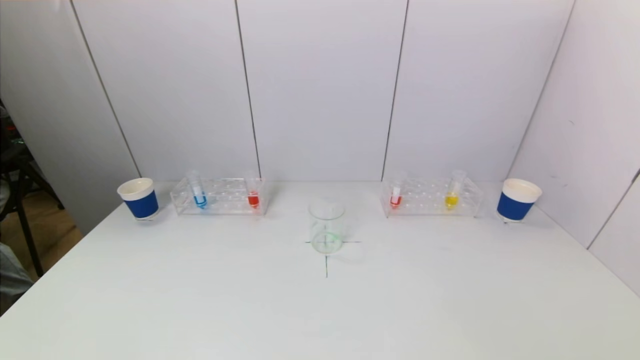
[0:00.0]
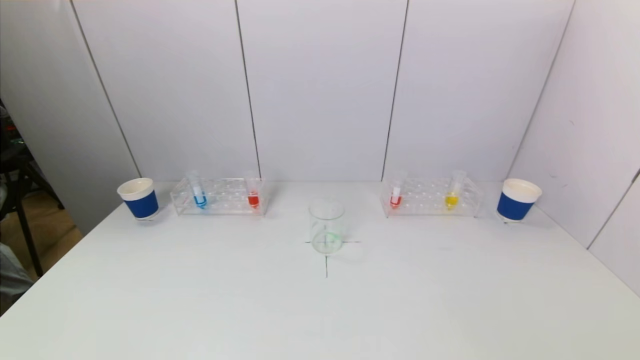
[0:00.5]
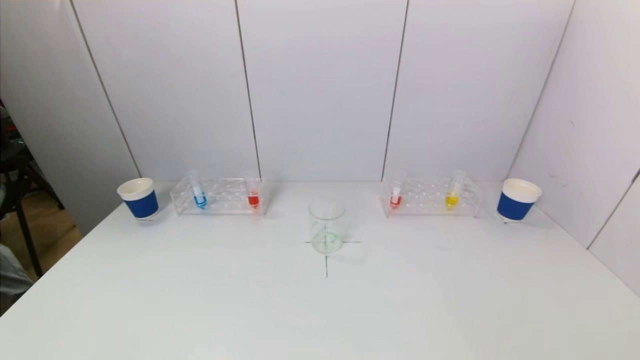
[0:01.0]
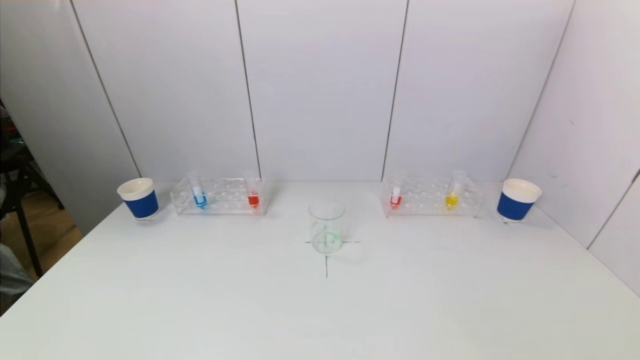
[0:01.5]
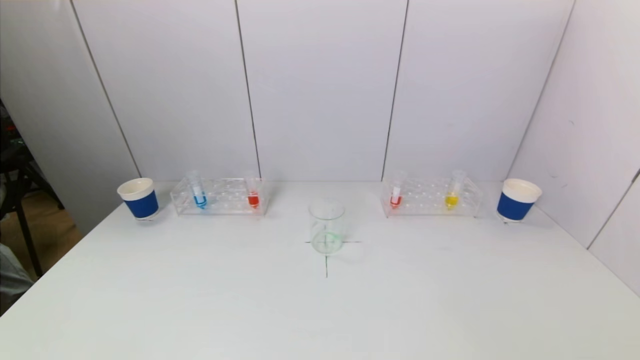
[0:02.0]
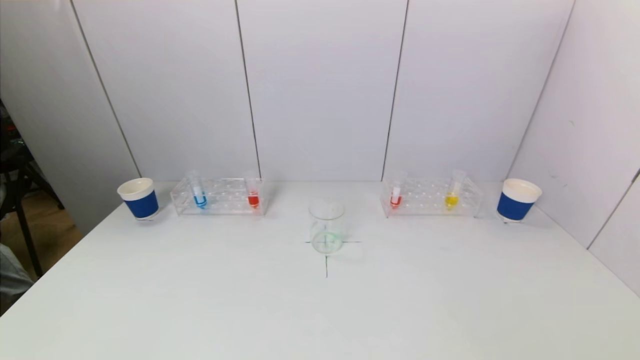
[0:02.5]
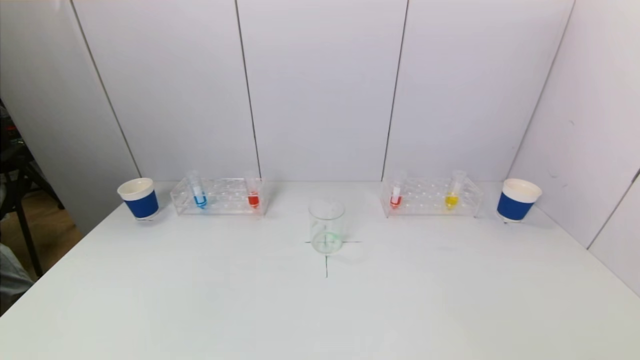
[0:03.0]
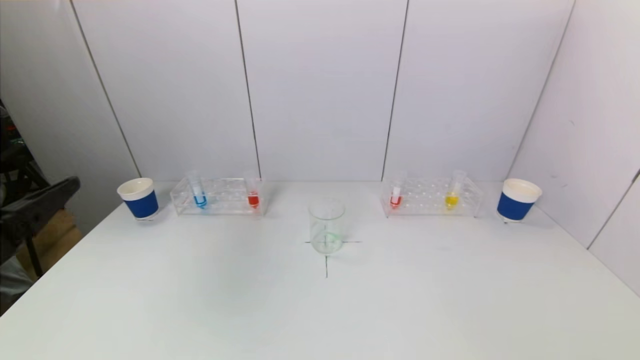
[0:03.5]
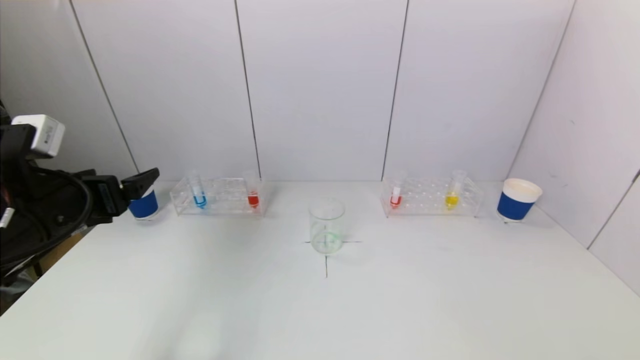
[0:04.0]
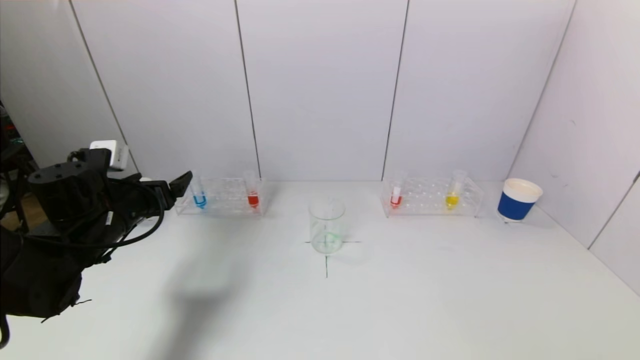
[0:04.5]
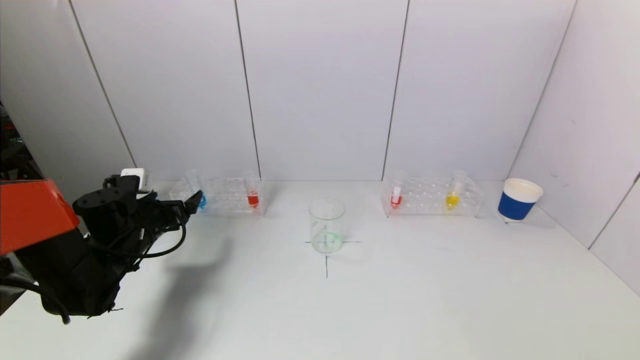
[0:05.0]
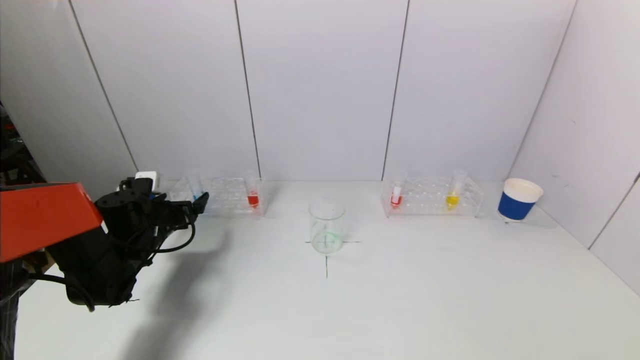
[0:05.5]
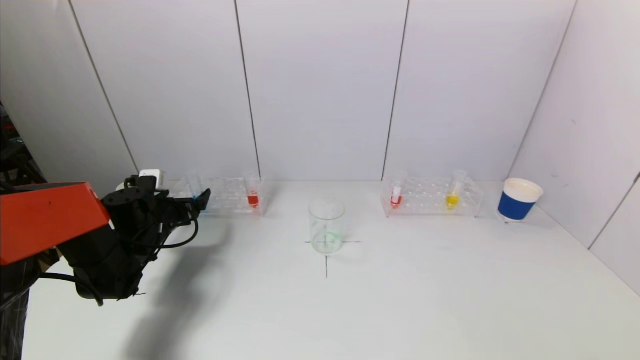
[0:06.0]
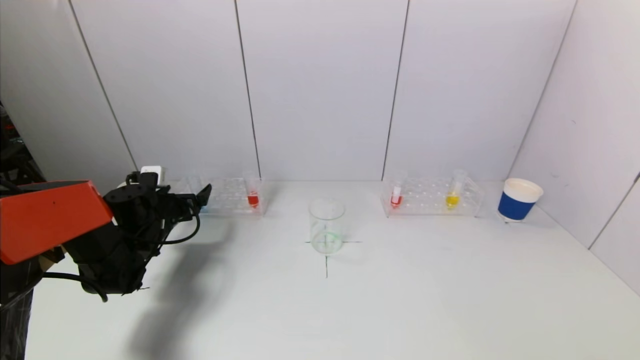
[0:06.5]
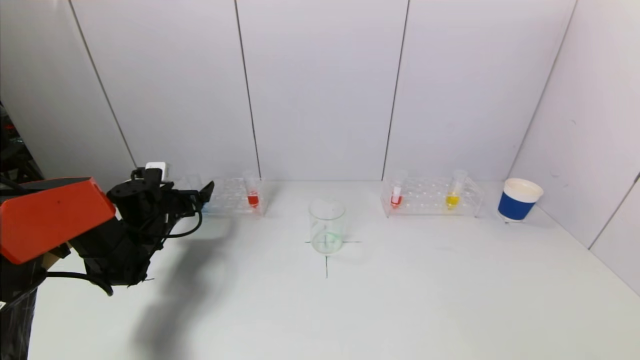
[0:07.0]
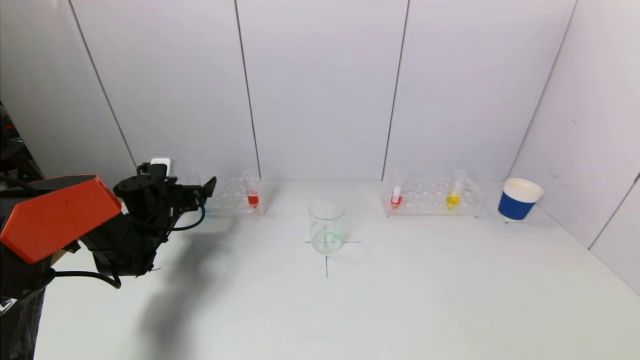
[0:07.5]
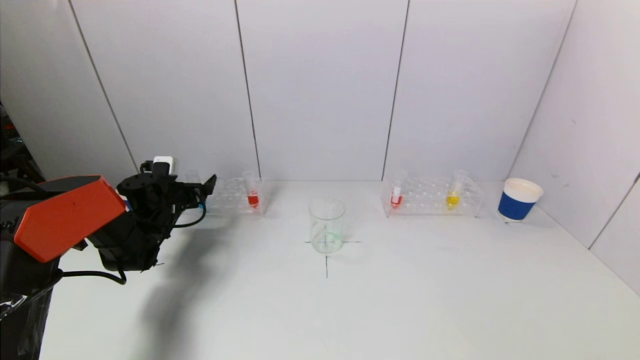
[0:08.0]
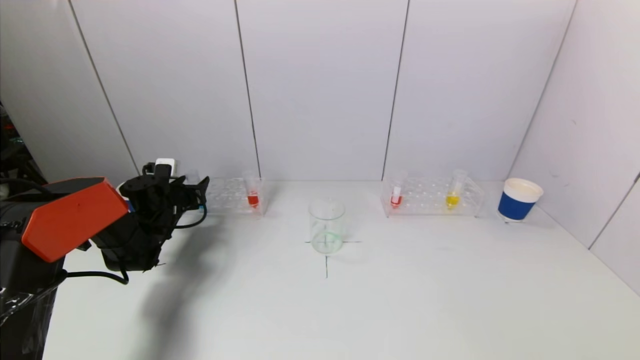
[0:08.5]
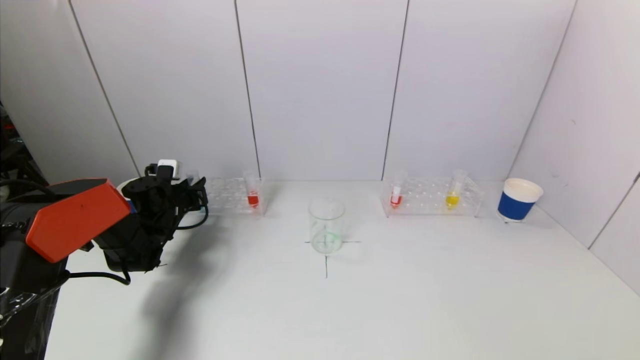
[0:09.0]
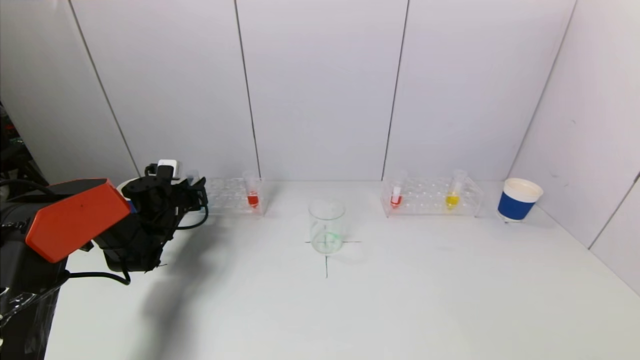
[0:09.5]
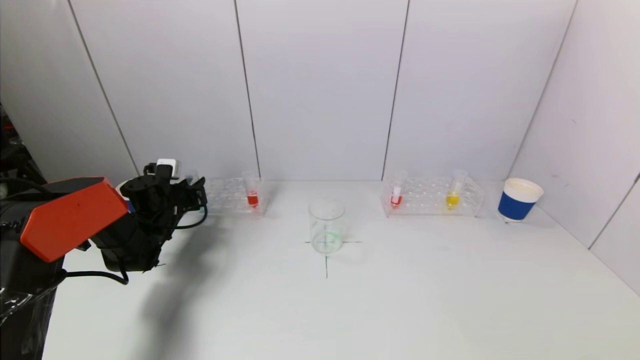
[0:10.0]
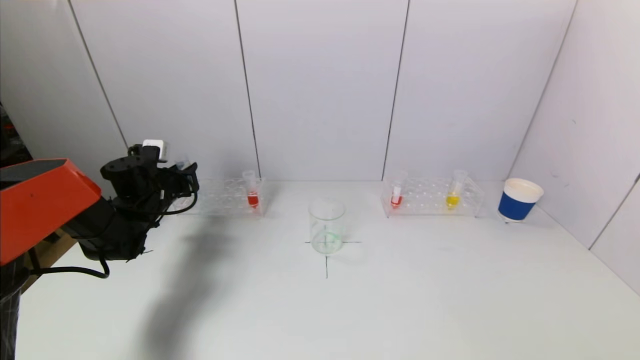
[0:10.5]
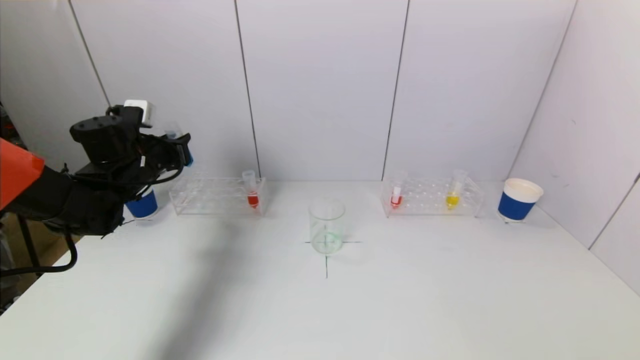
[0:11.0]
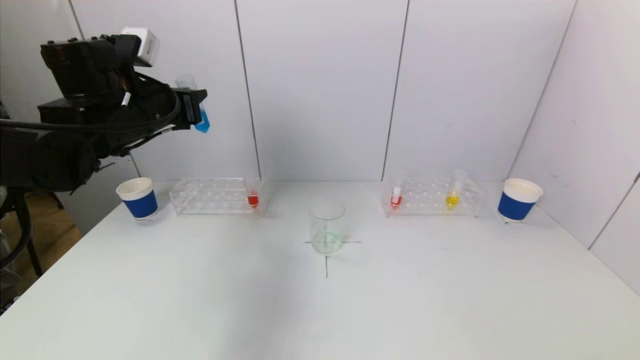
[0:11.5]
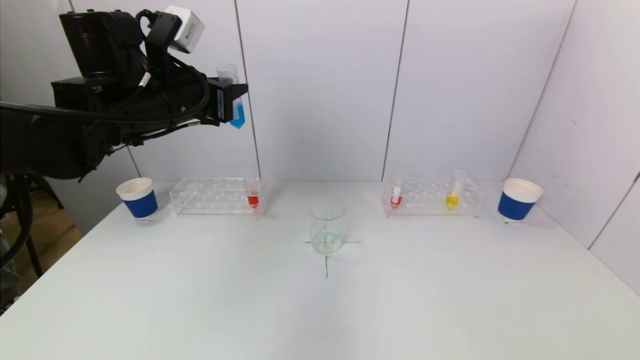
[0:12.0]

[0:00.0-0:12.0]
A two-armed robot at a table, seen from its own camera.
Task of the whole recording: pick up a test tube with pigment on left test tube rack and a test tube with pigment on right test tube rack by grippers and pour them into the beaker.
Step, 0:00.0 to 0:08.5: Grasp the blue reagent with the left gripper.
0:00.0 to 0:02.0: Neither gripper changes place.
0:02.0 to 0:04.0: The left gripper goes approximately 25 cm forward and upward.
0:04.0 to 0:06.0: The left gripper moves forward and downward, some 25 cm.
0:06.0 to 0:08.0: The left gripper is displaced forward by approximately 5 cm.
0:08.0 to 0:10.0: The left gripper closes up.
0:10.0 to 0:12.0: The left gripper is displaced upward, to the right and backward by approximately 30 cm.

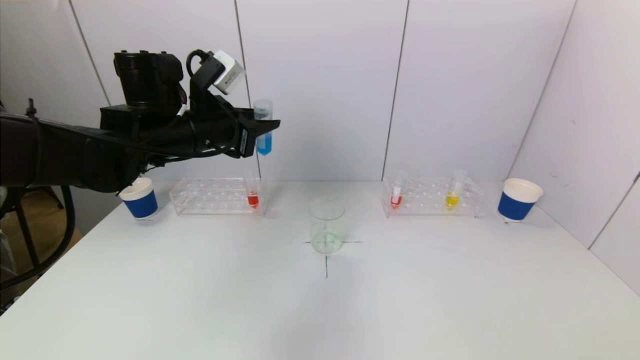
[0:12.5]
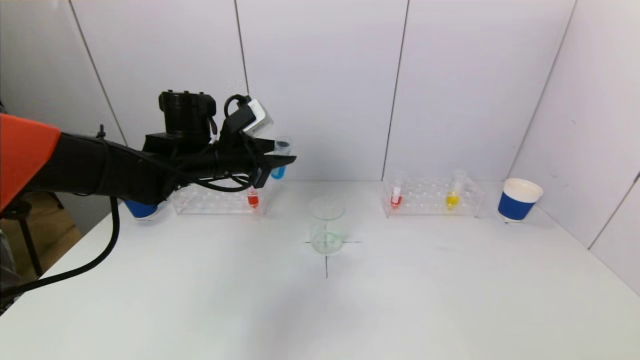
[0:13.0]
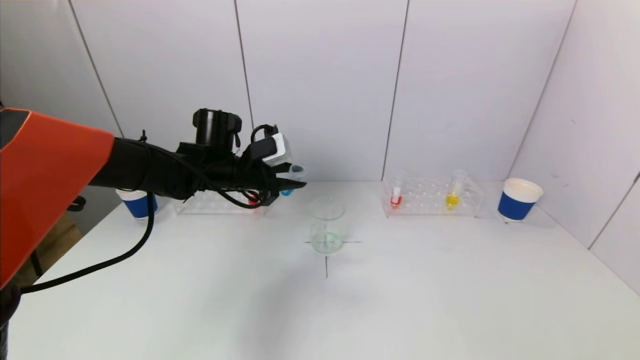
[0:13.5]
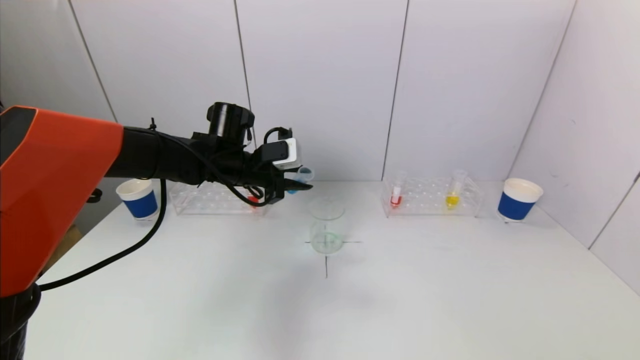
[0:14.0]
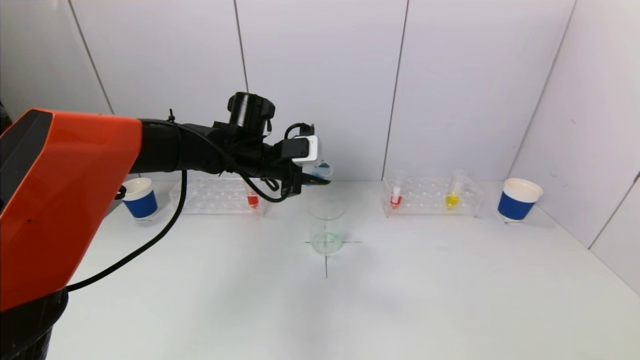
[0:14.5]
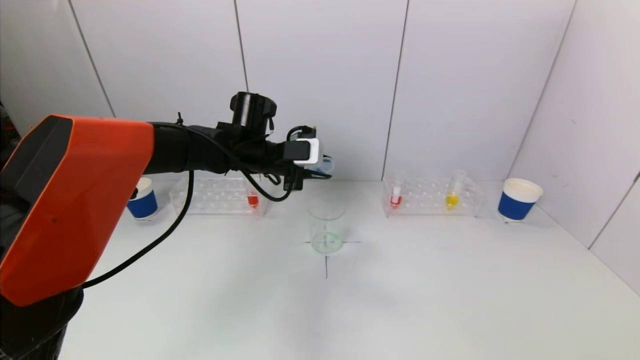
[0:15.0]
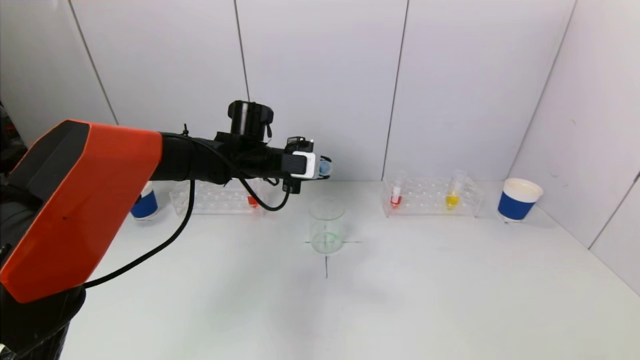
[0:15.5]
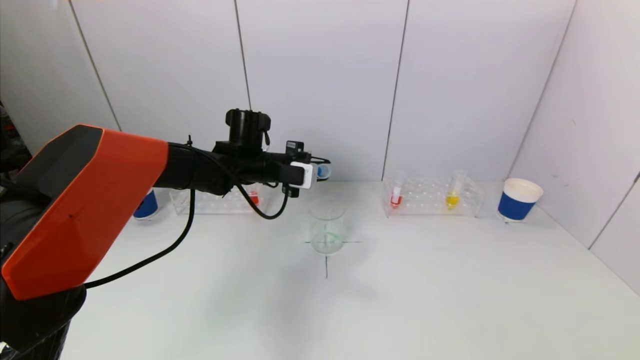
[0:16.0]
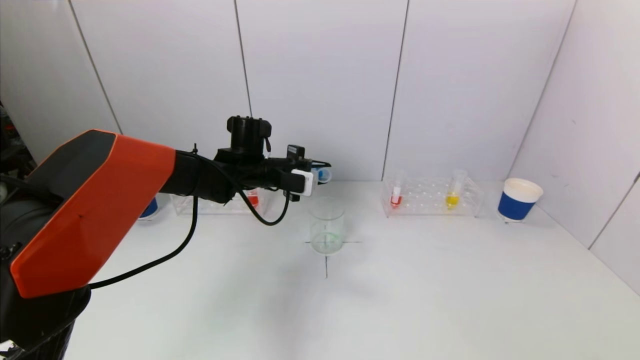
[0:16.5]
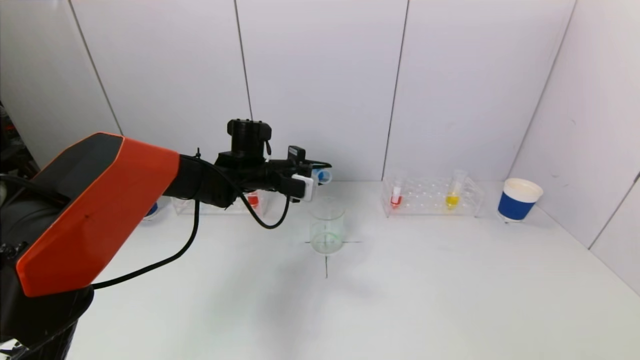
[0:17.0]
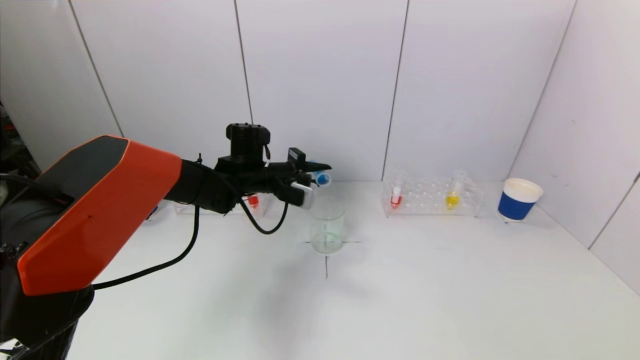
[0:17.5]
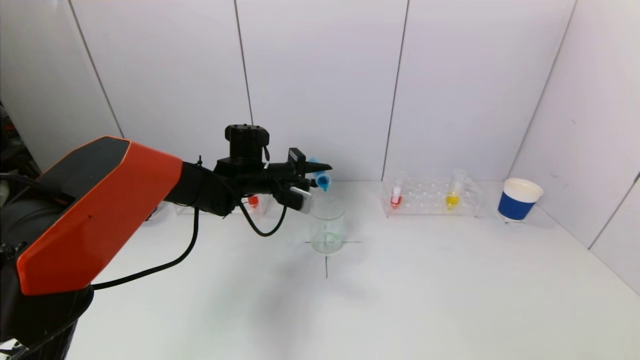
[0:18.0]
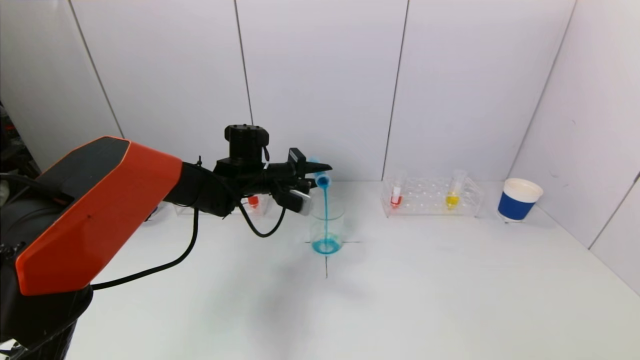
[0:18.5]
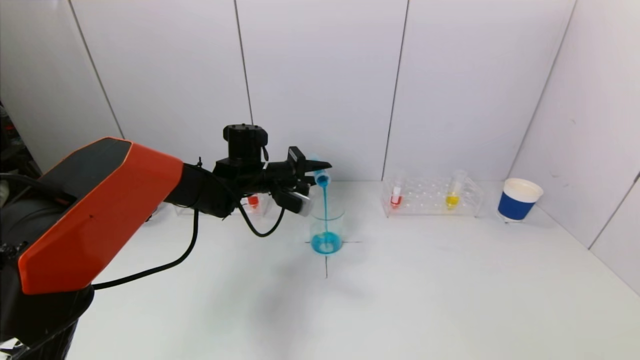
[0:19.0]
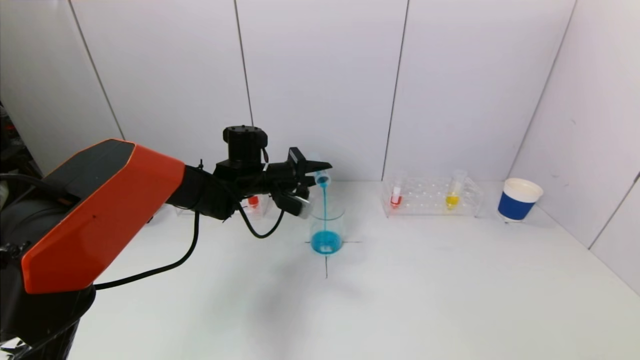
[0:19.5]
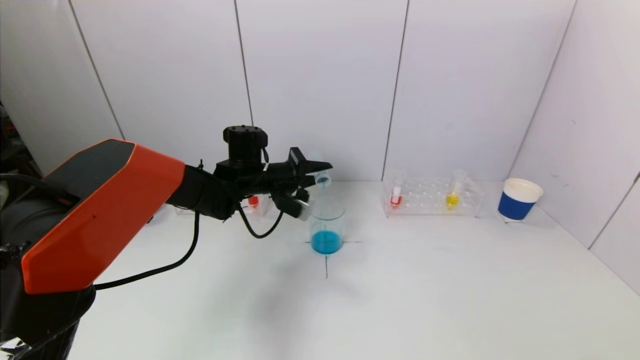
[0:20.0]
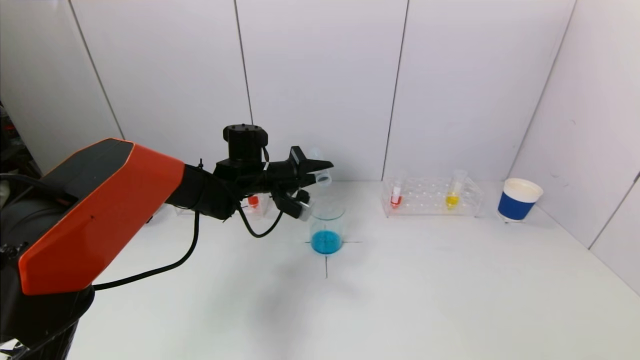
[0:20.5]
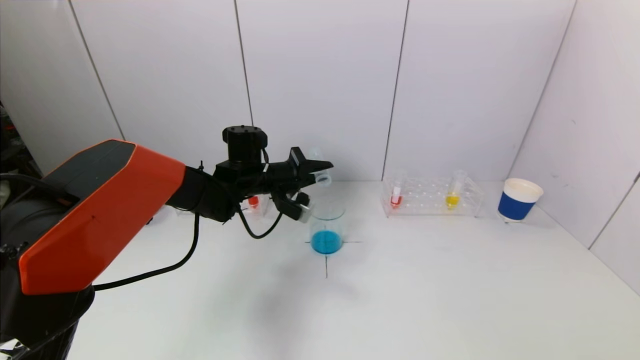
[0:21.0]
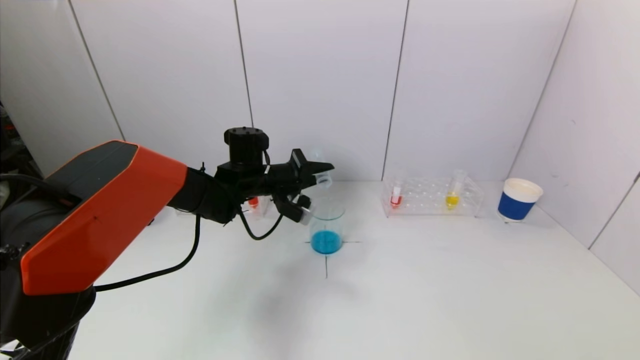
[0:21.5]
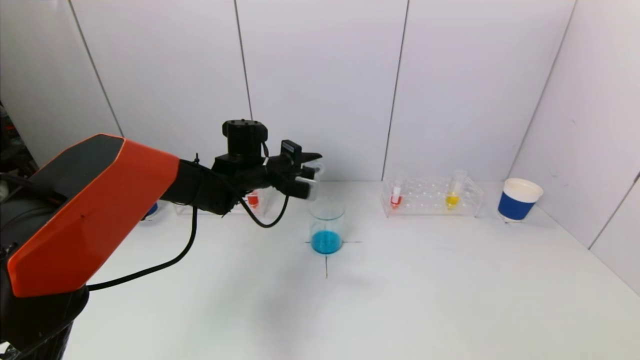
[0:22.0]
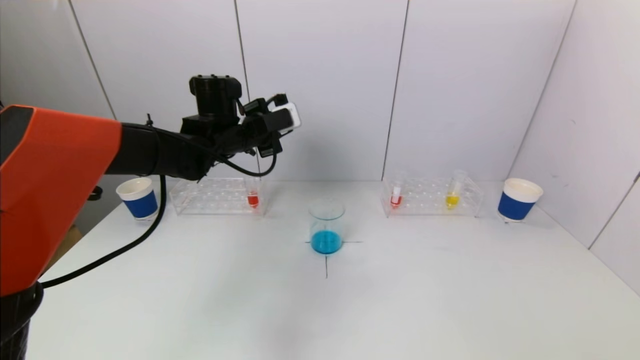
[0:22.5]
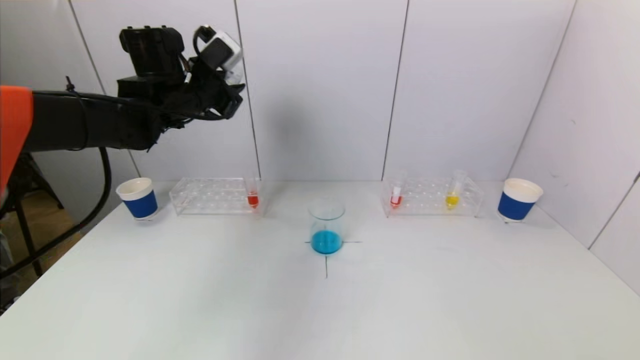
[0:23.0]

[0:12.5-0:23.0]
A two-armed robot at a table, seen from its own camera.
Task of the whole recording: pick up a test tube with pigment on left test tube rack and a test tube with pigment on right test tube rack by grippers and pour them into the beaker.
Step, 0:12.5 to 0:20.5: Pour the blue reagent into the graduated cylinder with the left gripper.
0:12.5 to 0:14.5: The left gripper goes some 10 cm to the right, forward and downward.
0:19.0 to 0:21.0: The grippers stay close to where they were, moving slightly.
0:21.0 to 0:23.0: The left gripper is displaced upward and to the left by approximately 20 cm.
